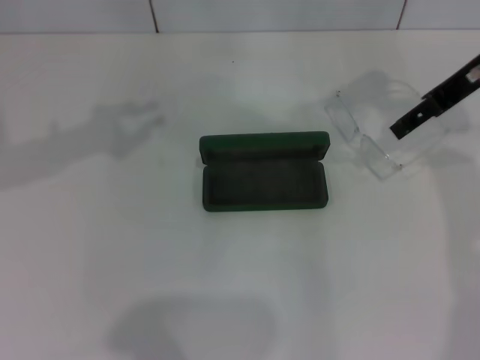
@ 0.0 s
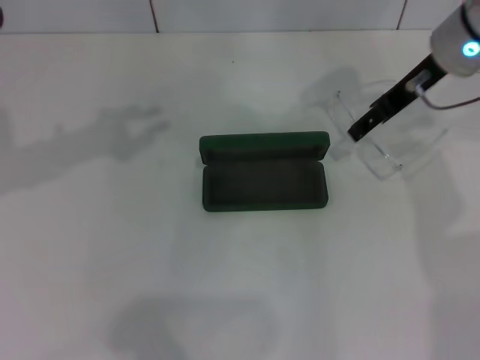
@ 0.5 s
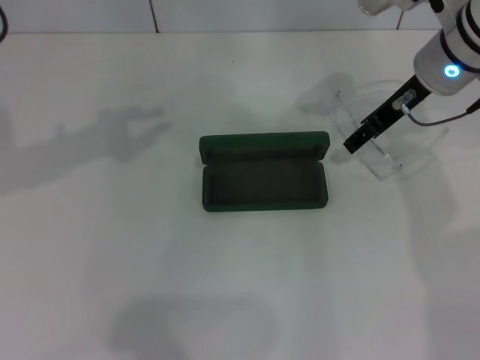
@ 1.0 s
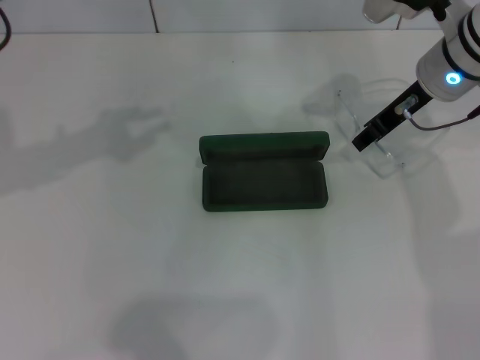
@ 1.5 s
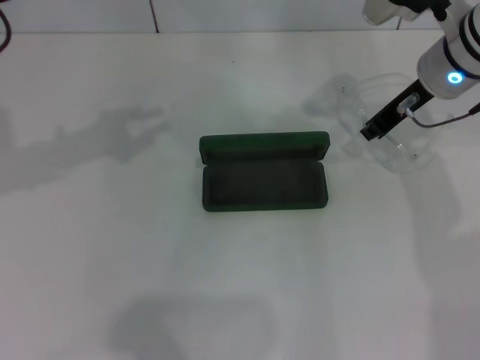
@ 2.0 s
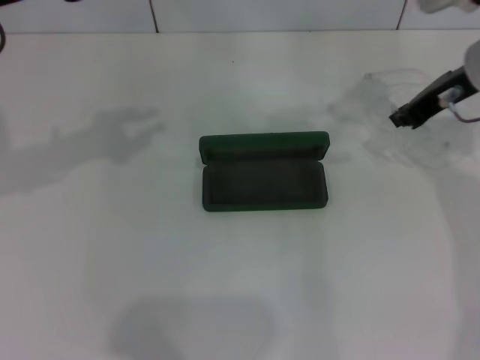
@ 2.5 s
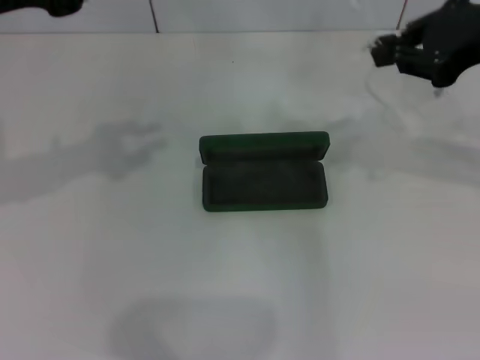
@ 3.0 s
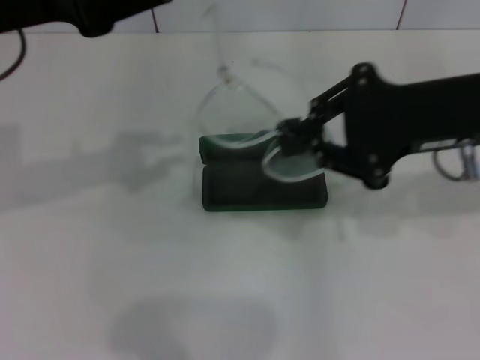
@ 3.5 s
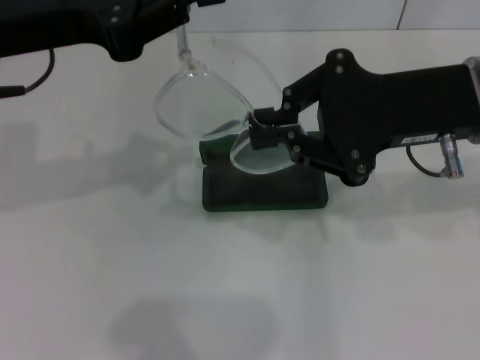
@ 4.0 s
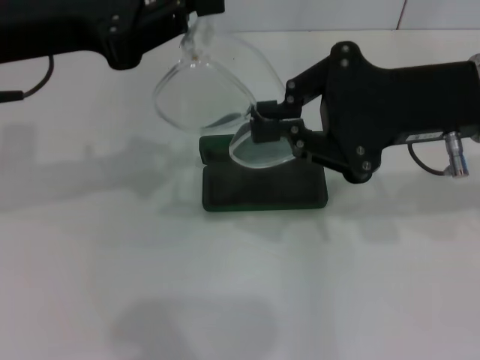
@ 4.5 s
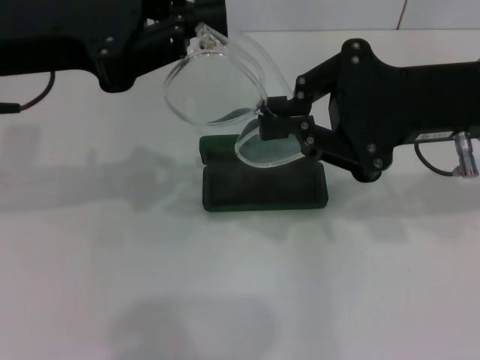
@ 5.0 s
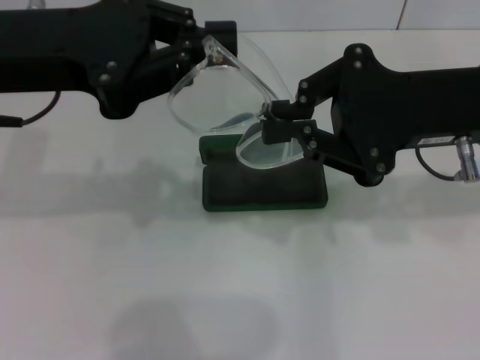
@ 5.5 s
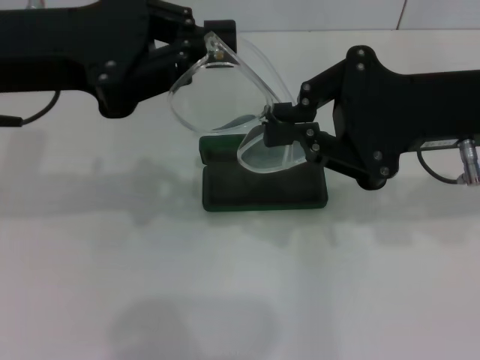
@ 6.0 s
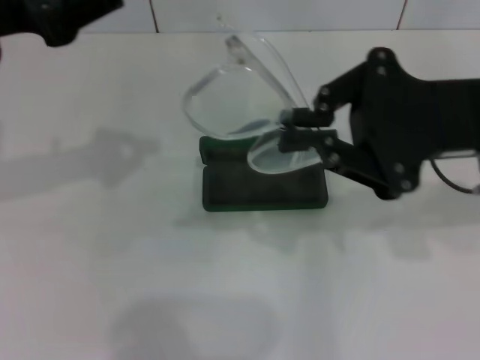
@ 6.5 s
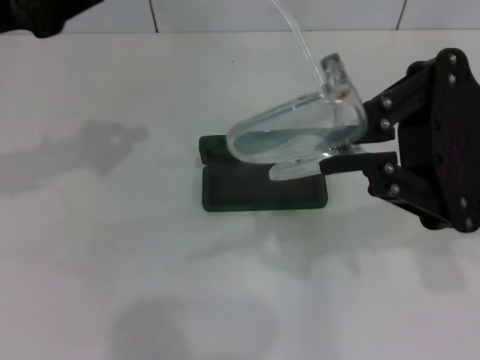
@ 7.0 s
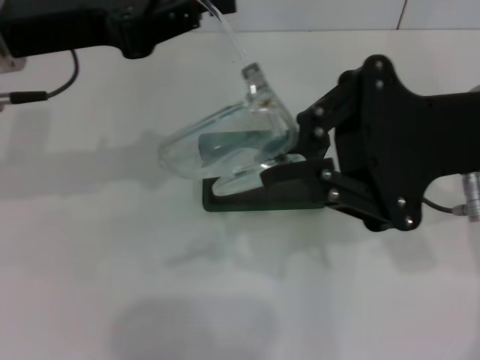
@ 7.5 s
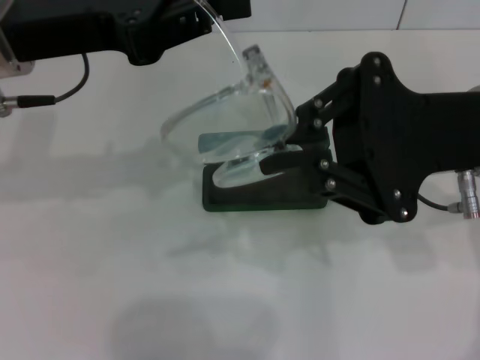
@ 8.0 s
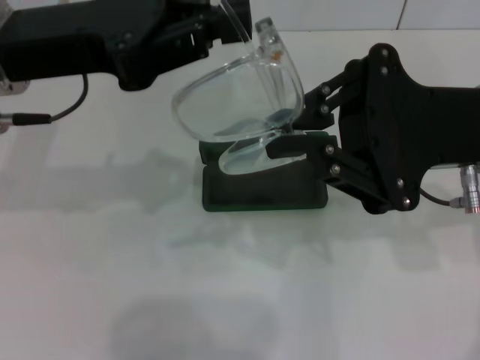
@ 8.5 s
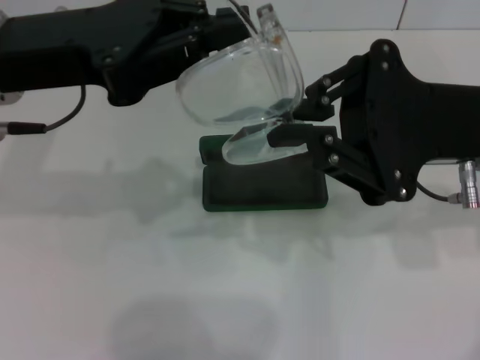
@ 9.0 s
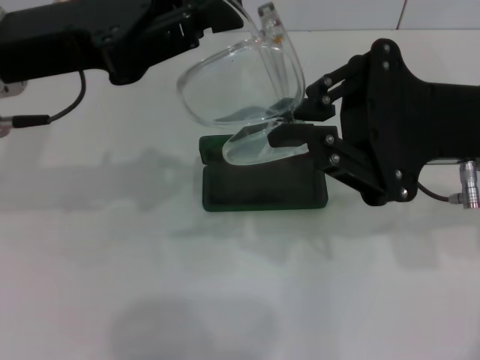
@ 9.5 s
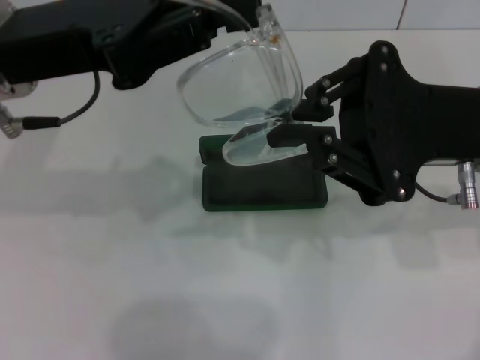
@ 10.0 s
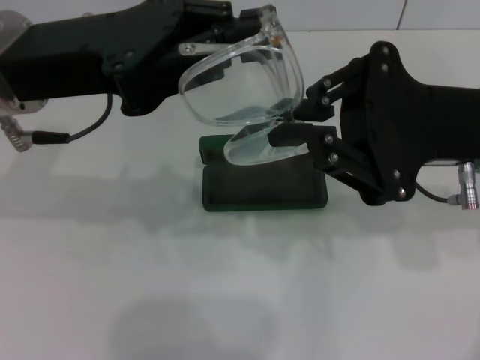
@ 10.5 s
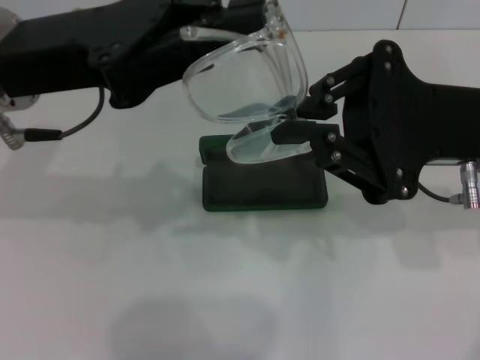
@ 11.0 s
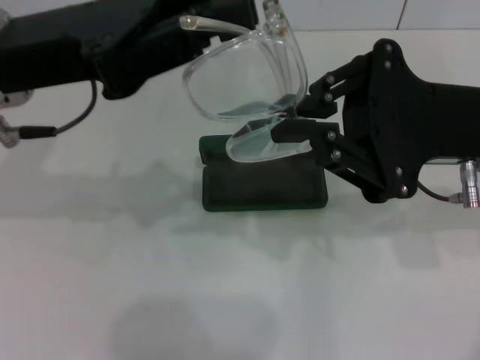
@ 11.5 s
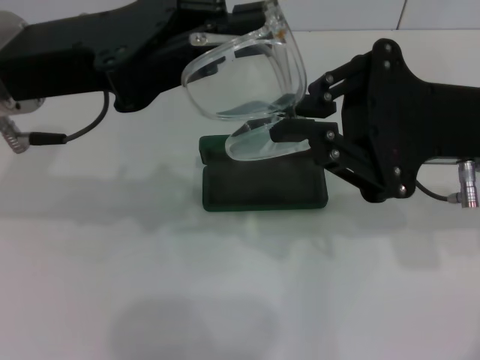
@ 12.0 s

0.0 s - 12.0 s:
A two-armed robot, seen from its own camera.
Step, 2.0 s - 10.5 s: Fold the frame with your left hand.
0.0 s - 2.0 s: The right gripper goes approximately 5 cm downward, and closes.
2.0 s - 4.0 s: The right gripper is displaced backward and upward by roughly 15 cm.
4.0 s - 6.0 s: The grippers make only small movements.
8.0 s - 10.0 s: The grippers make only small movements.
10.0 s - 12.0 s: The two grippers keep their place.

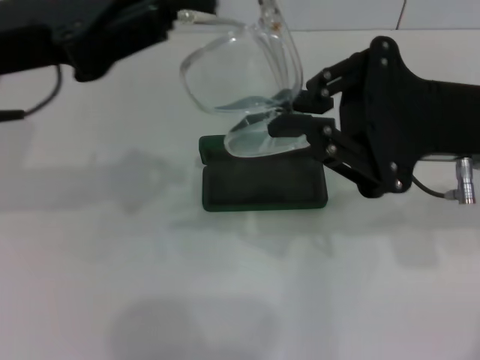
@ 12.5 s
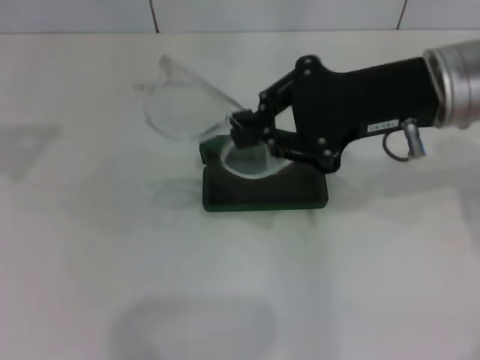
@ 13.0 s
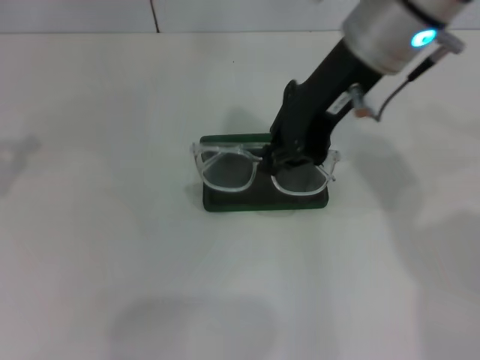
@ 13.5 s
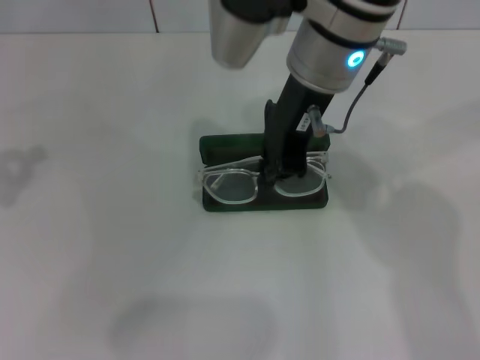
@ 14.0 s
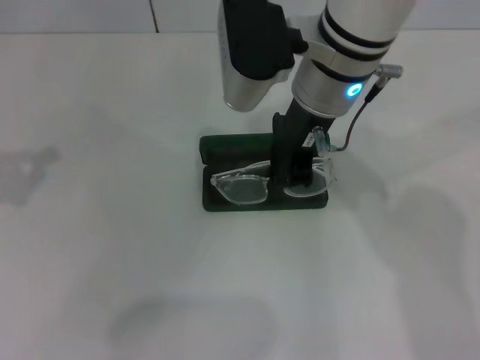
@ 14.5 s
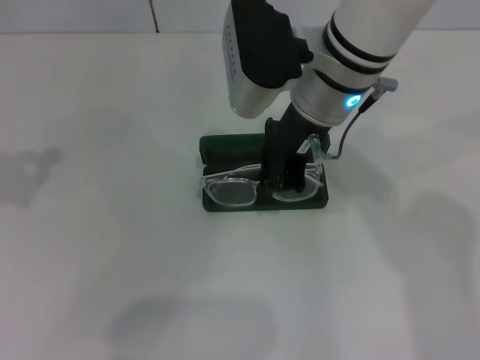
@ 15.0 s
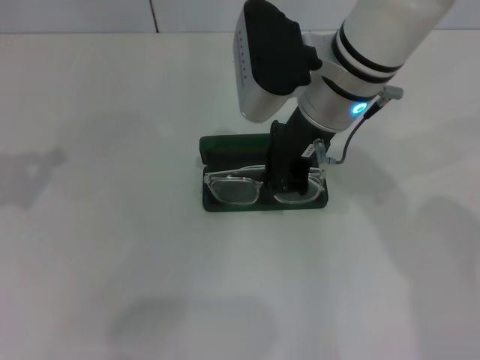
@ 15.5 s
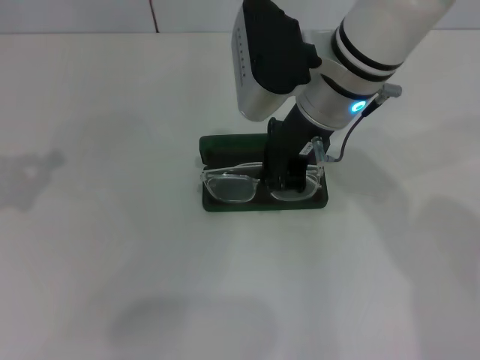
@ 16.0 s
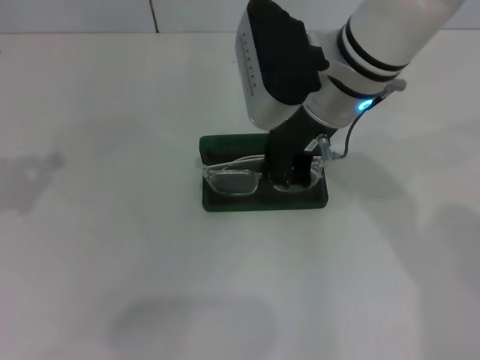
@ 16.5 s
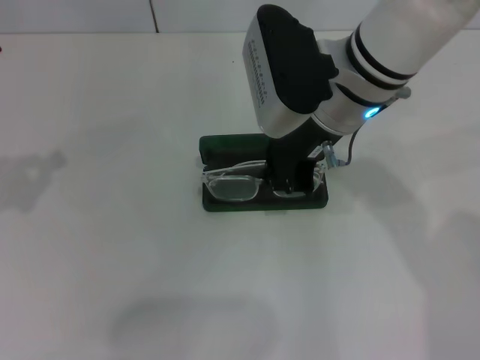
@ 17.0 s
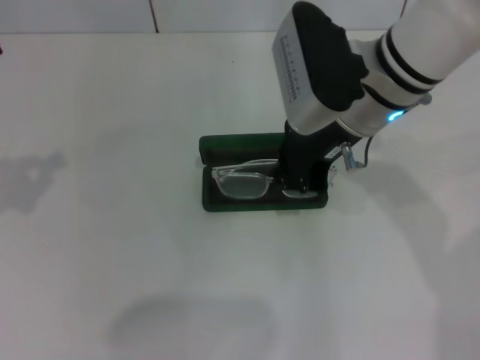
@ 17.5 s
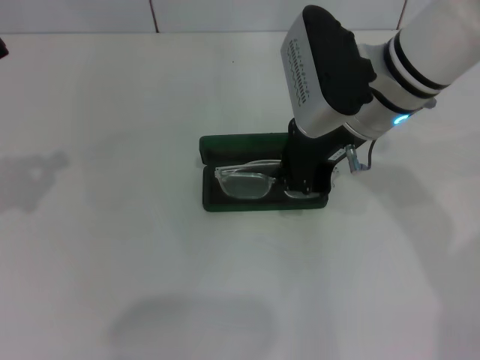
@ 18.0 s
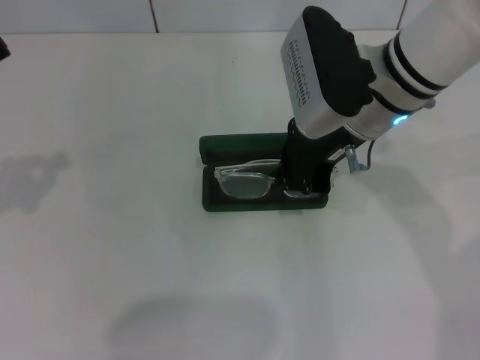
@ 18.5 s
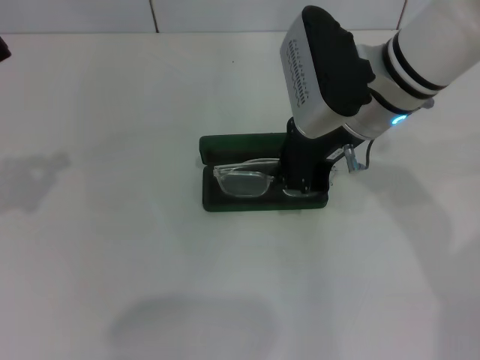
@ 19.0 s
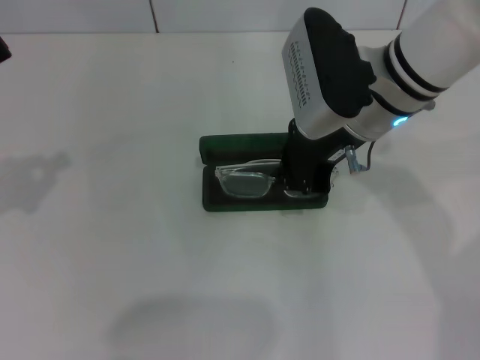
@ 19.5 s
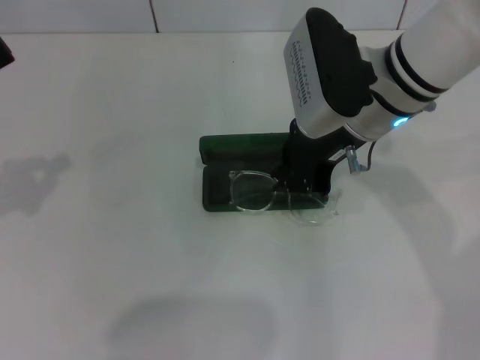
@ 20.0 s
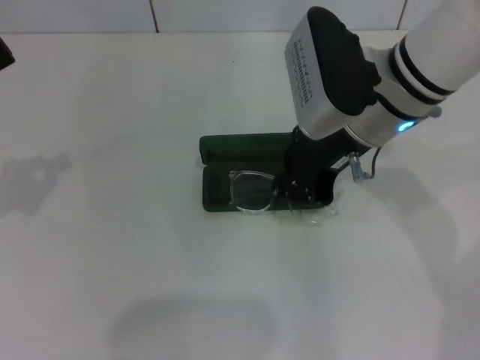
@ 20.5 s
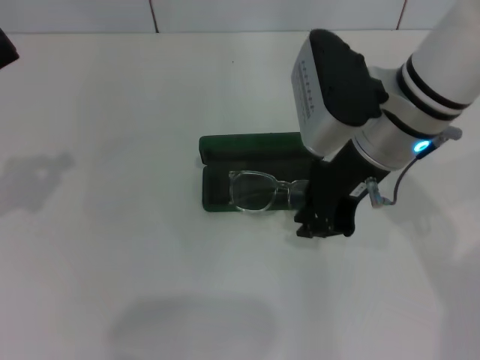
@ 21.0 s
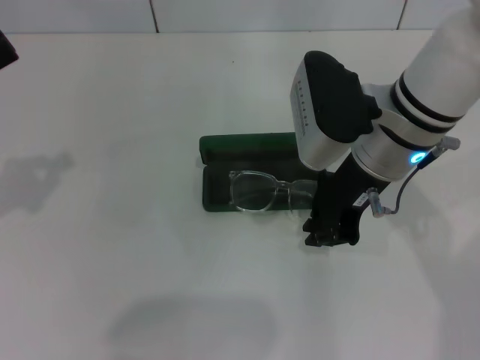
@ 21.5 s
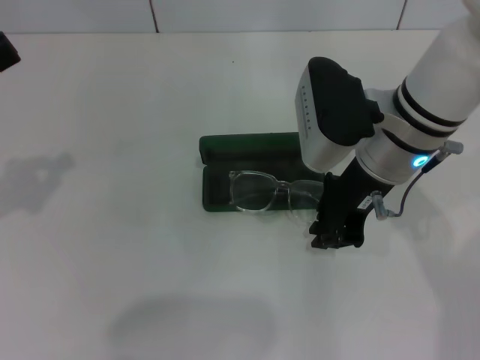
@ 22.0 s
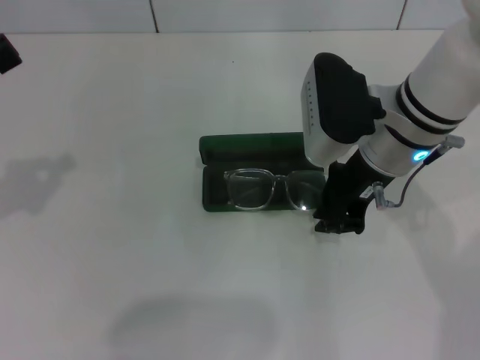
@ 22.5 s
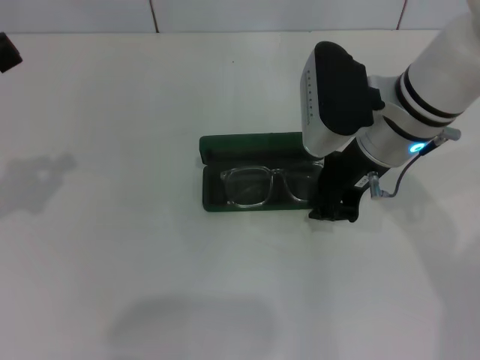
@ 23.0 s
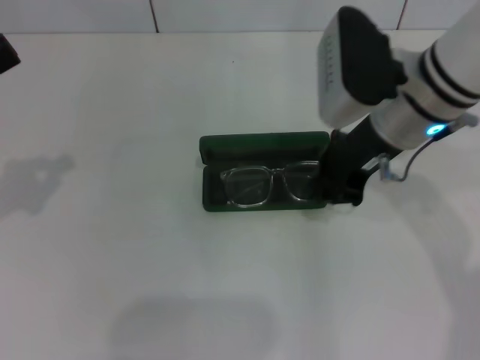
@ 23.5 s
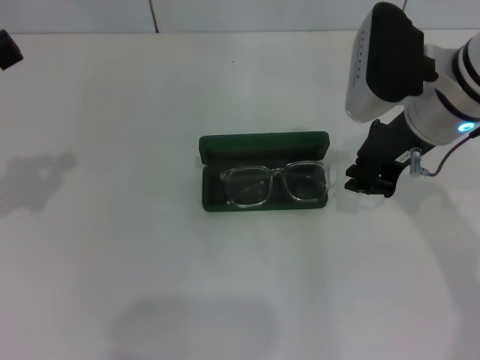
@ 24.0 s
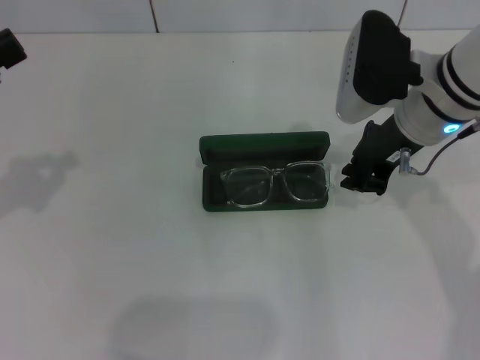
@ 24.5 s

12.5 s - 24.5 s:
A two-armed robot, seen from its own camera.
Step, 12.5 s - 21.0 s: Put the glasses into the case with your right hand.
12.5 s - 14.5 s: The right gripper is displaced to the left and forward by about 15 cm, while the left gripper travels to the left and backward by approximately 15 cm.
14.5 s - 18.5 s: There are only small adjustments of the grippers.
18.5 s - 20.5 s: Neither gripper changes place.
20.5 s - 22.5 s: The grippers move only a little.
22.5 s - 24.5 s: The grippers move only a little.

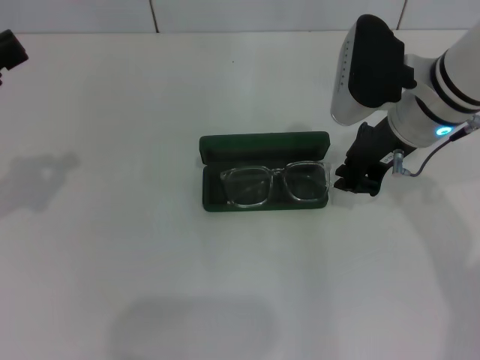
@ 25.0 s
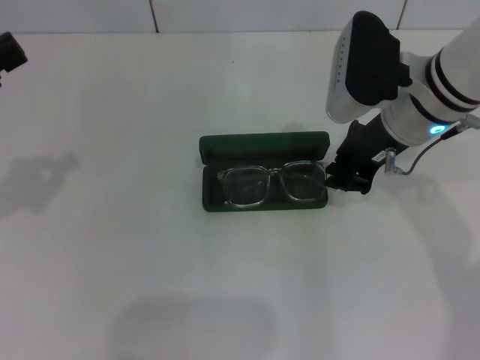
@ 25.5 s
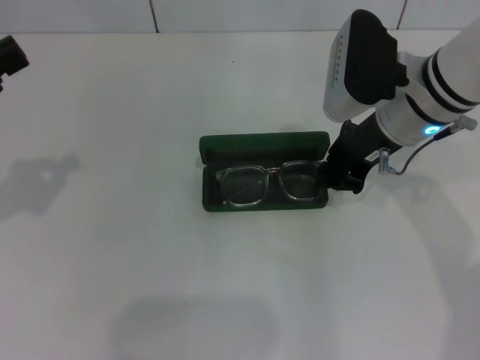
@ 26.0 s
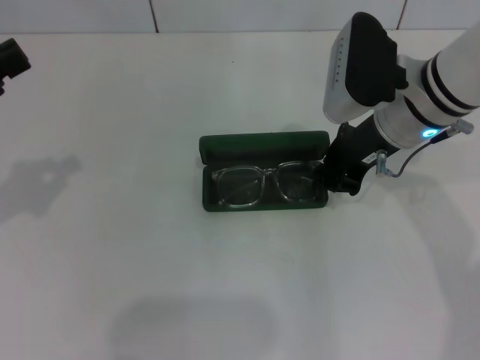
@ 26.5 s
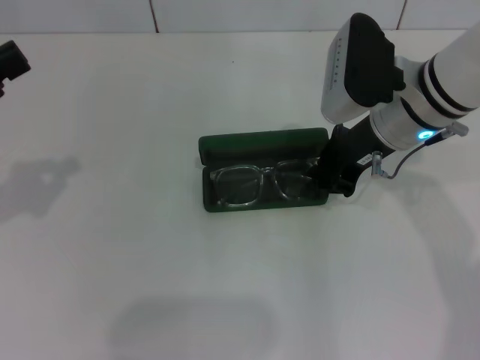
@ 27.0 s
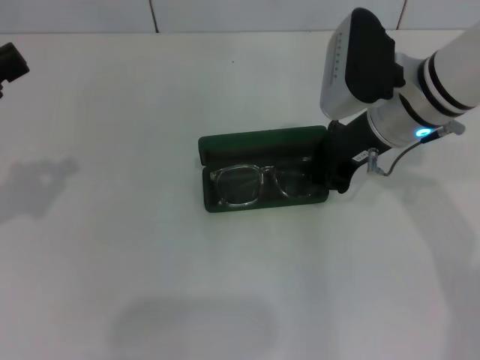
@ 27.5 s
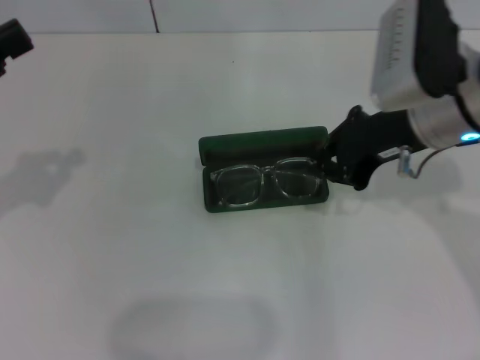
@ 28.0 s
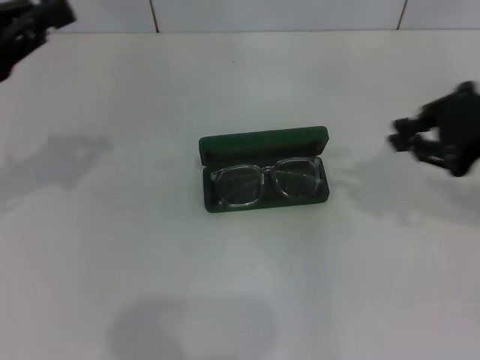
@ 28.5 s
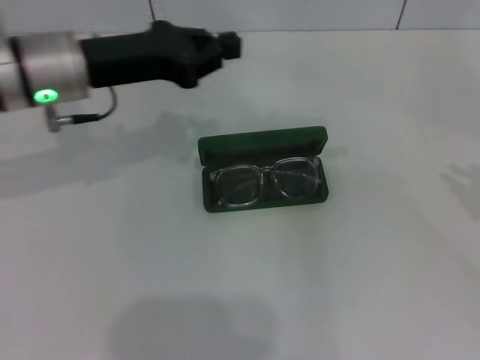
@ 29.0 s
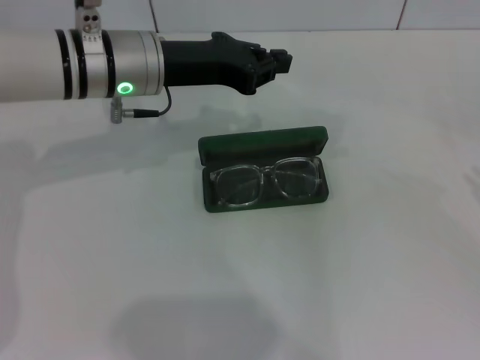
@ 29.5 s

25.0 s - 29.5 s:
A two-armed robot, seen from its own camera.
25.0 s - 27.0 s: There are only small adjustments of the grippers.
27.0 s - 29.5 s: The right gripper travels to the right and backward by about 30 cm. The left gripper goes some 25 cm to the right and forward.
